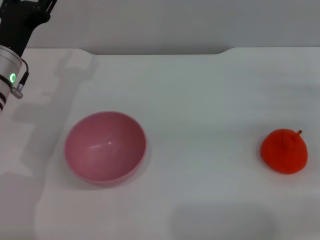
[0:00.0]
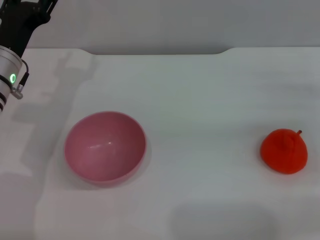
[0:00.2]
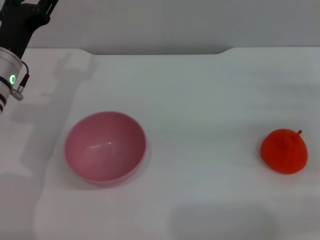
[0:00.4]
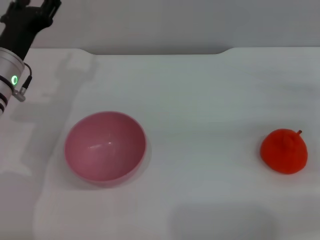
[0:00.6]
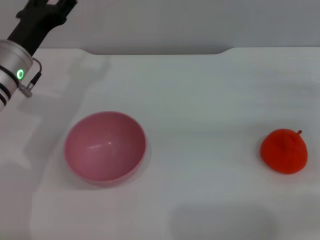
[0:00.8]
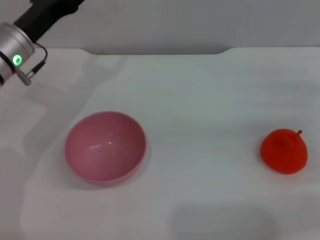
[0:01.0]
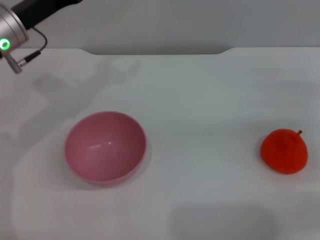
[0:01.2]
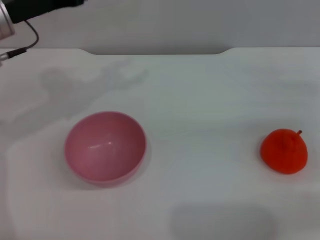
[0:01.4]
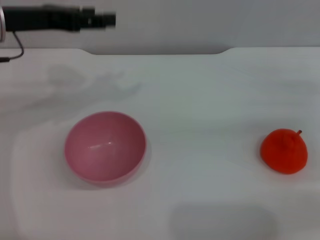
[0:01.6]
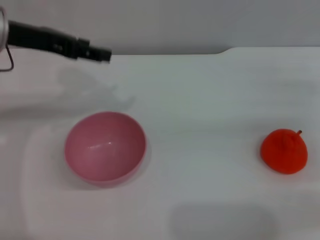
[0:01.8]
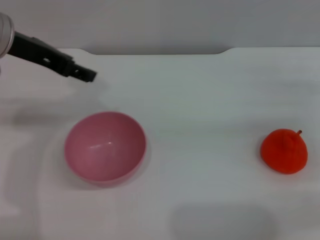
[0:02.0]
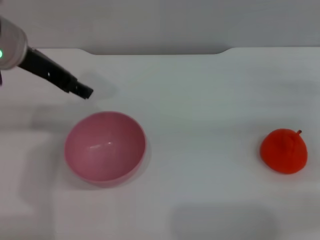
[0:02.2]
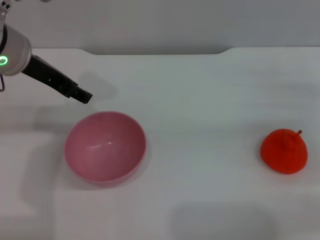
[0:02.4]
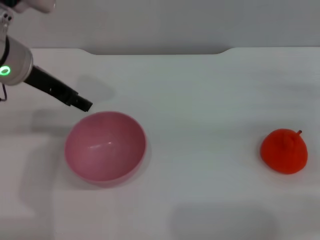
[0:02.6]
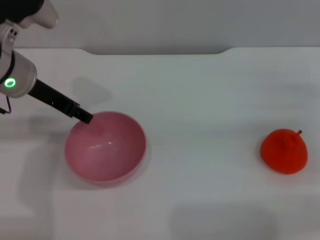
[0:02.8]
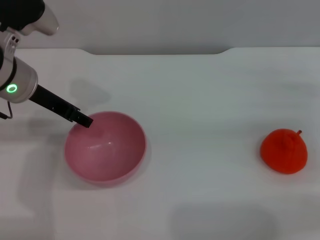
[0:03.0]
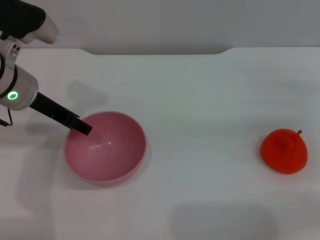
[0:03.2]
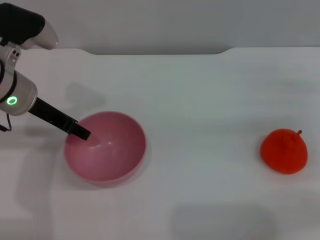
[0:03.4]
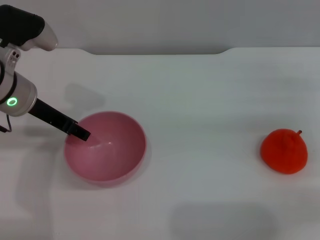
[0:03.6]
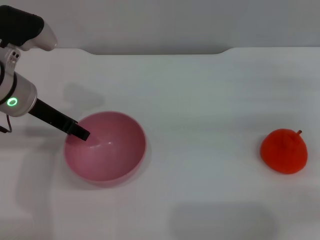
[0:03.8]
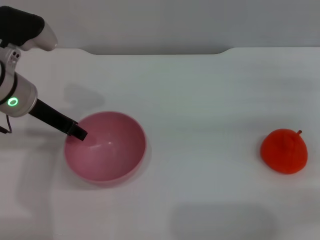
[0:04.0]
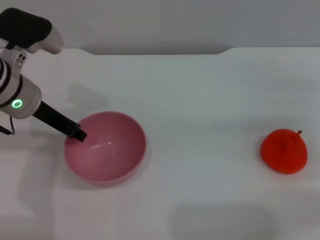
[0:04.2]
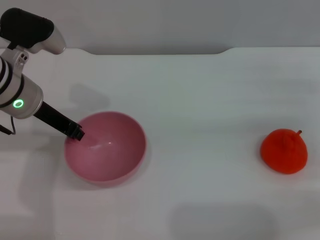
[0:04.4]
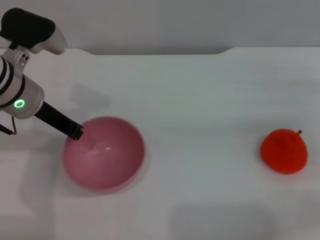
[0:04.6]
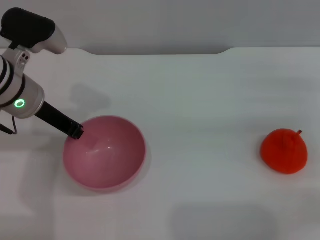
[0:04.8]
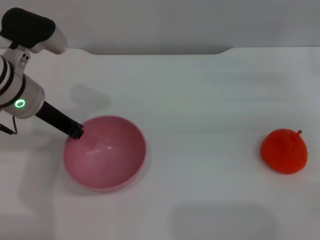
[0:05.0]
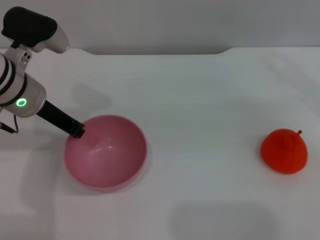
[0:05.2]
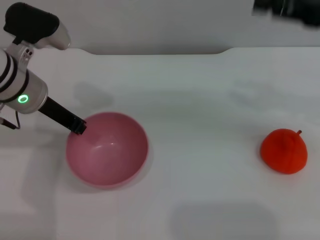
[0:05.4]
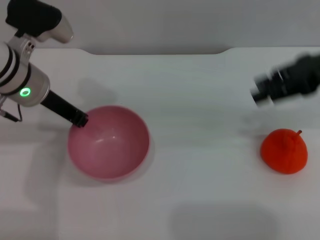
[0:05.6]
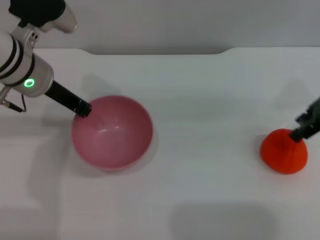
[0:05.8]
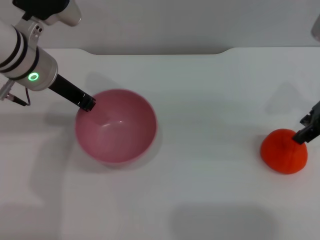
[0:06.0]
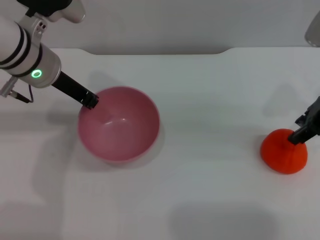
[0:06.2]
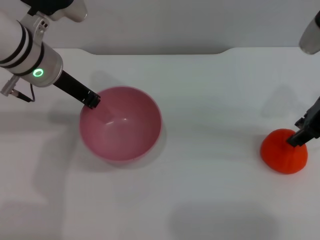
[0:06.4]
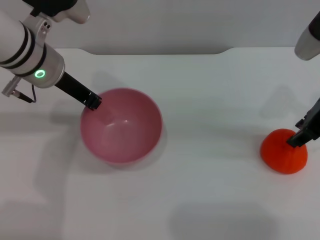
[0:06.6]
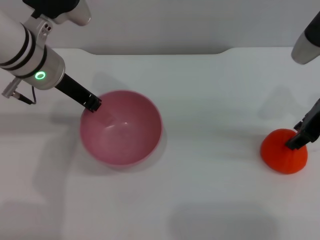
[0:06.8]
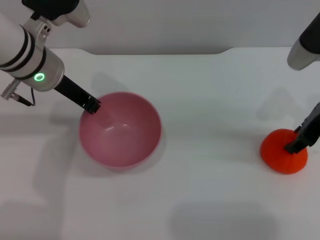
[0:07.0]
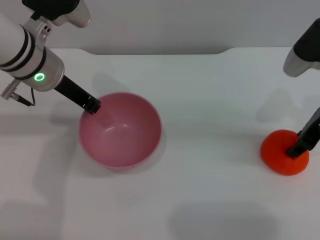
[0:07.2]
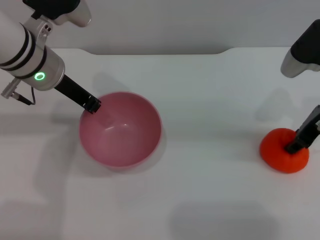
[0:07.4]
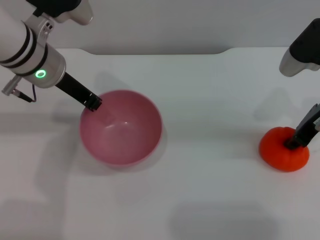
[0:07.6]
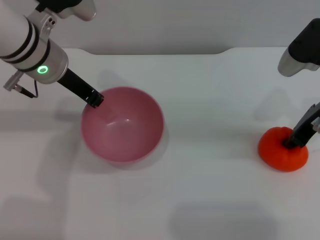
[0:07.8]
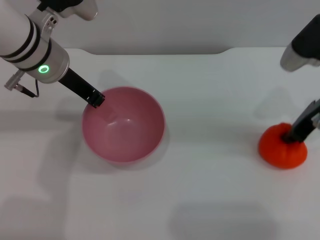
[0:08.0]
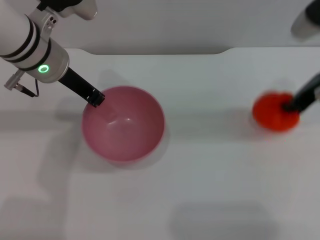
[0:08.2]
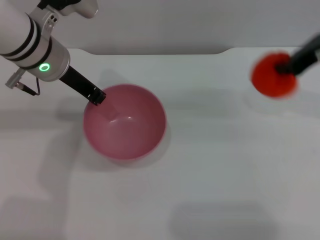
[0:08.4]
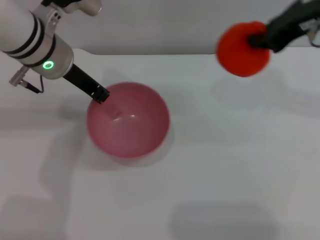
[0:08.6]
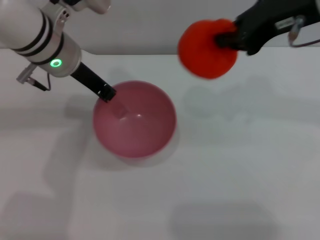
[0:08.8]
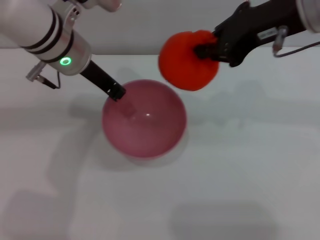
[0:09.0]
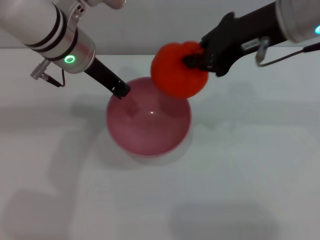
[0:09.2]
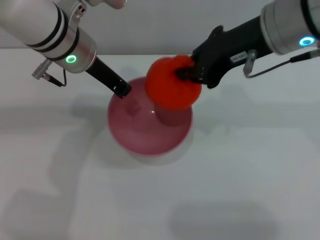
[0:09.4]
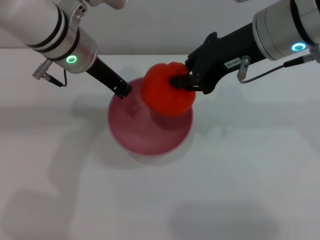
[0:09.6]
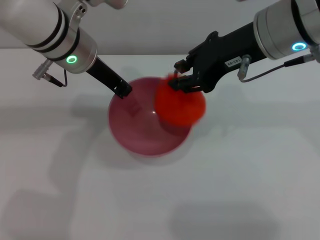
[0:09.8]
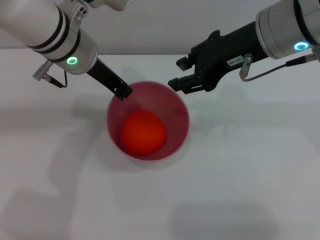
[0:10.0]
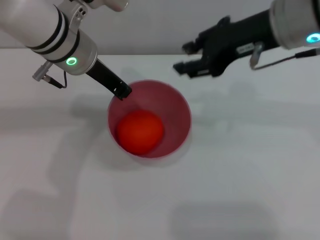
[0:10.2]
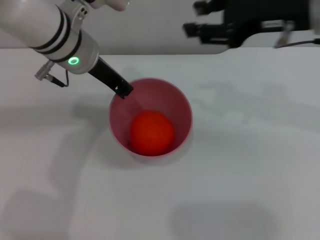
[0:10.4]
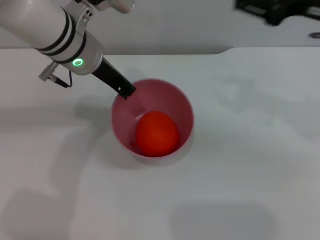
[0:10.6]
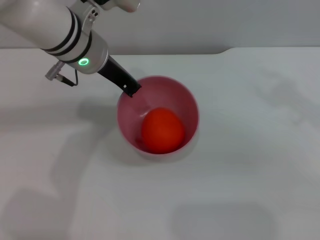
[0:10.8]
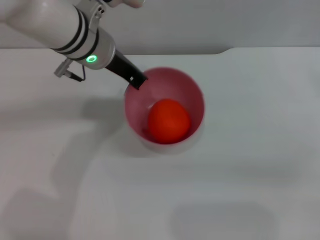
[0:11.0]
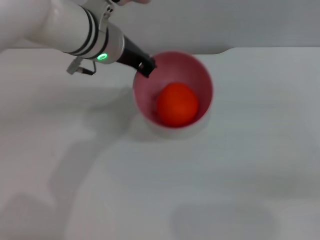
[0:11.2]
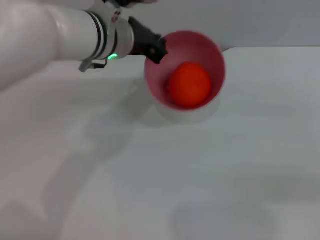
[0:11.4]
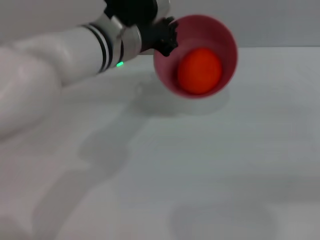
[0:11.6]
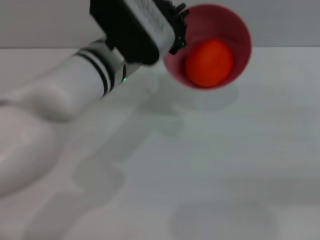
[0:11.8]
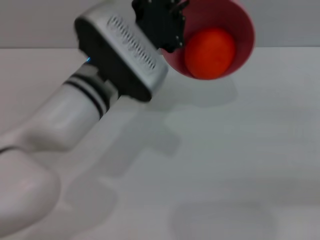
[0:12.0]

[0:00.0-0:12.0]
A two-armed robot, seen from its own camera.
Task of the whole recording: put the orange into the pink bowl and pour it out repeatedly.
Step, 0:00.0 to 0:05.8: Pick up the bowl with the left gripper.
Step, 0:06.0 to 0:08.2: Pick up the orange with the right gripper.
Step, 0:08.4 to 0:10.0: Place the orange into the bowl.
0:00.0 to 0:01.6: The left gripper shifts roughly 10 cm upward.
0:01.6 to 0:03.0: The left gripper shifts by approximately 5 cm.
0:03.0 to 0:04.4: The left gripper closes its fingers.
0:04.4 to 0:06.0: The right gripper heads upward and to the left, covering about 15 cm.
0:06.0 to 0:07.6: The right gripper shifts some 5 cm downward.
0:07.6 to 0:09.0: The right gripper travels upward and to the left by about 15 cm, and closes.
0:09.0 to 0:10.4: The right gripper opens.
0:10.4 to 0:12.0: The right gripper is displaced to the right, downward and backward by some 25 cm; the left gripper moves backward, approximately 5 cm.

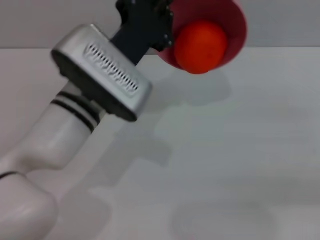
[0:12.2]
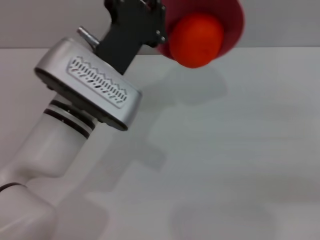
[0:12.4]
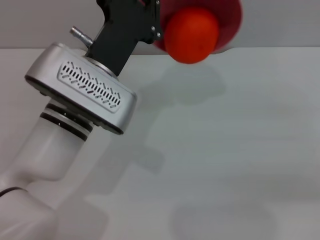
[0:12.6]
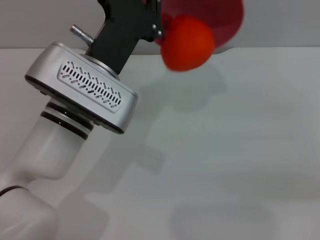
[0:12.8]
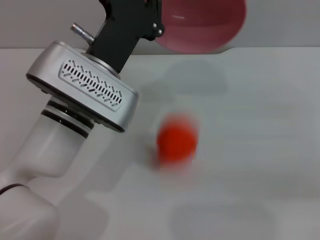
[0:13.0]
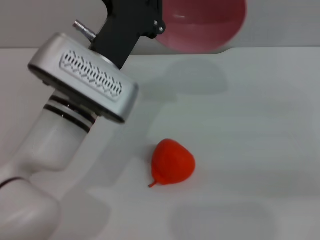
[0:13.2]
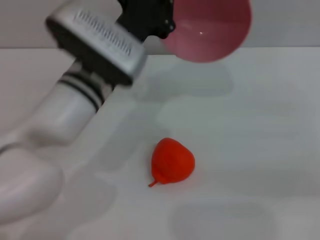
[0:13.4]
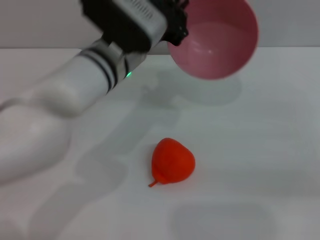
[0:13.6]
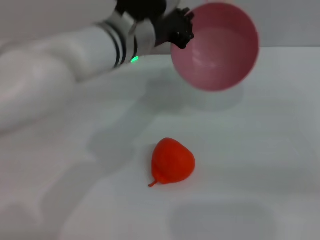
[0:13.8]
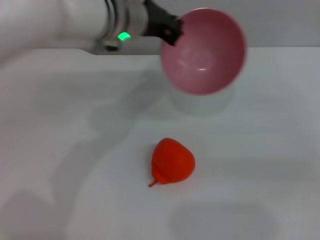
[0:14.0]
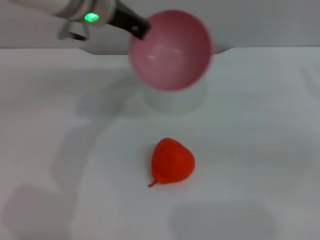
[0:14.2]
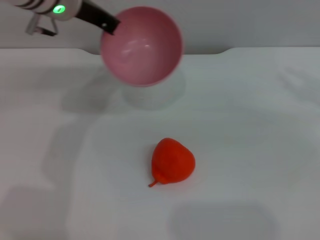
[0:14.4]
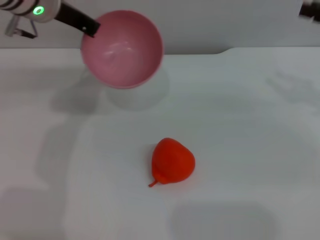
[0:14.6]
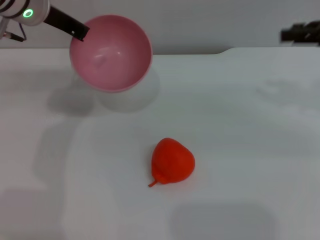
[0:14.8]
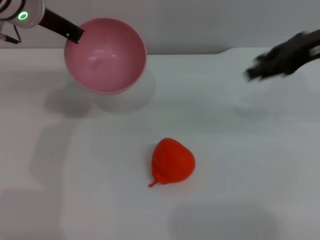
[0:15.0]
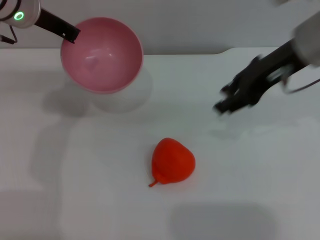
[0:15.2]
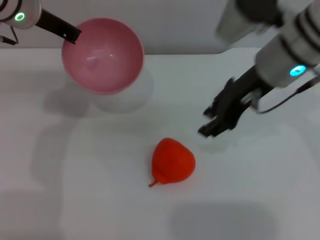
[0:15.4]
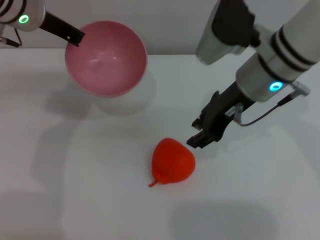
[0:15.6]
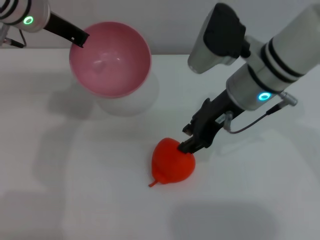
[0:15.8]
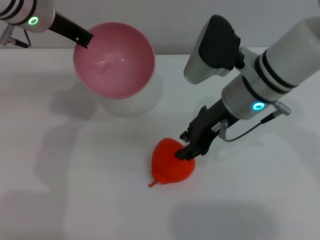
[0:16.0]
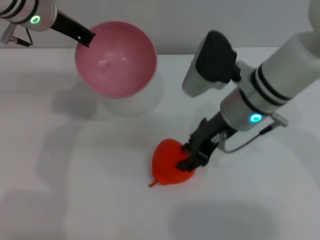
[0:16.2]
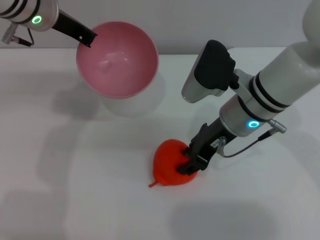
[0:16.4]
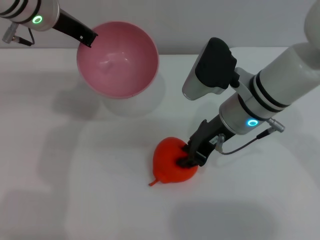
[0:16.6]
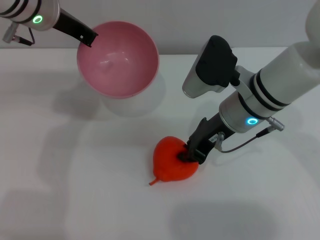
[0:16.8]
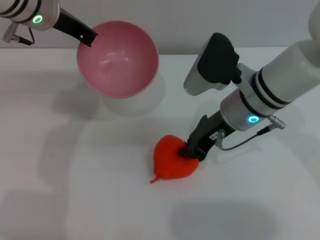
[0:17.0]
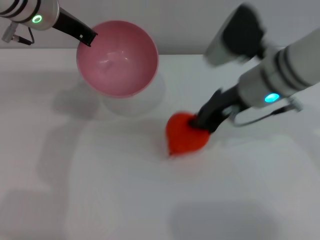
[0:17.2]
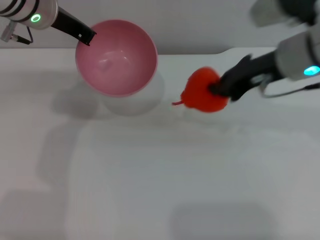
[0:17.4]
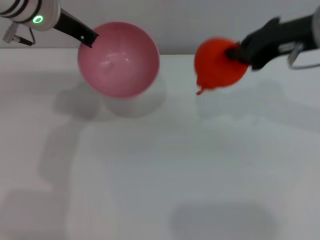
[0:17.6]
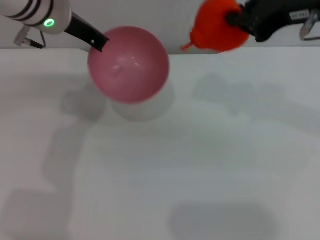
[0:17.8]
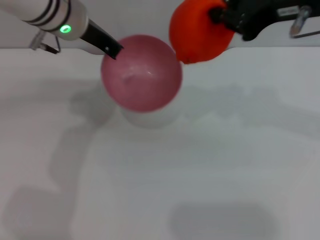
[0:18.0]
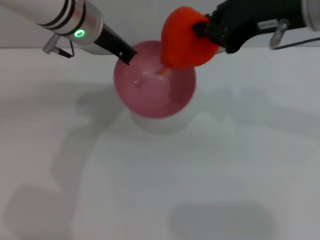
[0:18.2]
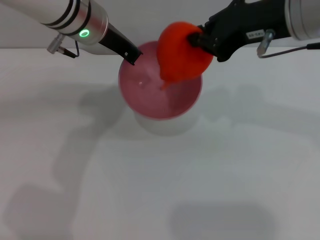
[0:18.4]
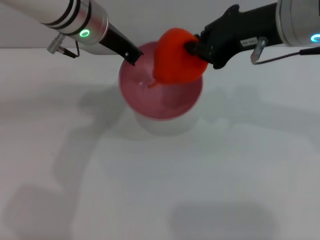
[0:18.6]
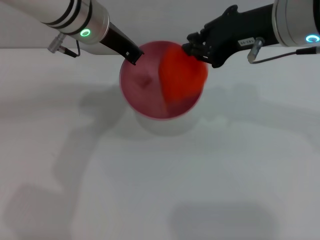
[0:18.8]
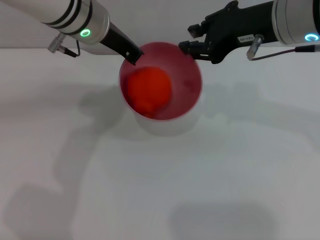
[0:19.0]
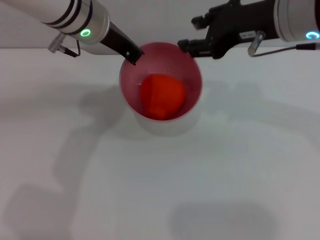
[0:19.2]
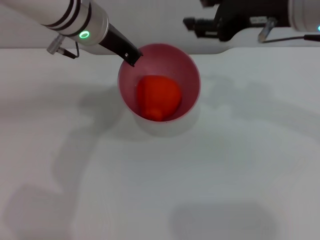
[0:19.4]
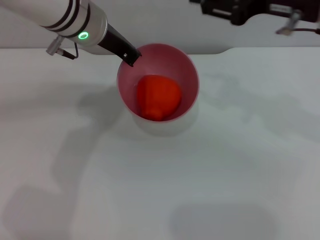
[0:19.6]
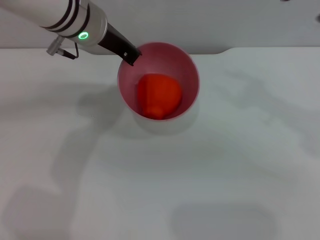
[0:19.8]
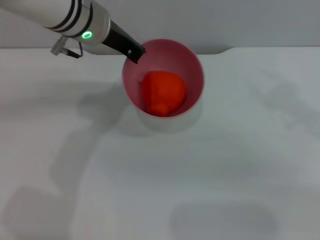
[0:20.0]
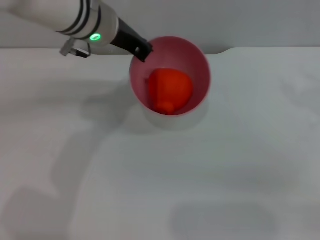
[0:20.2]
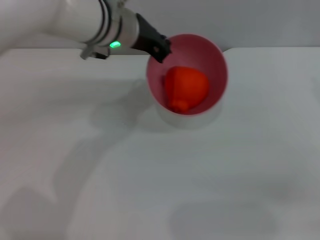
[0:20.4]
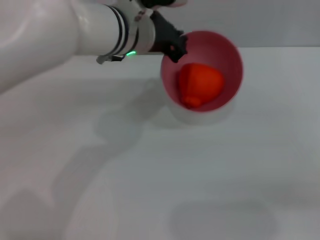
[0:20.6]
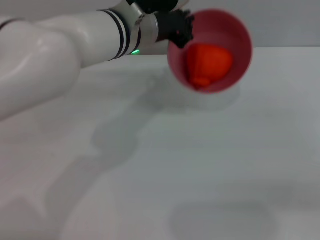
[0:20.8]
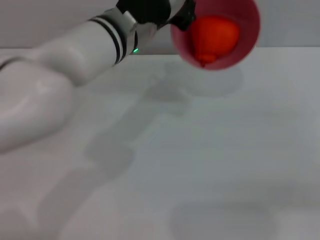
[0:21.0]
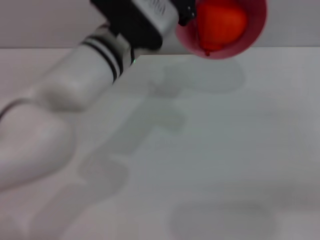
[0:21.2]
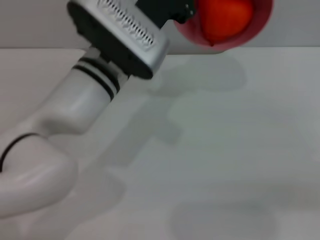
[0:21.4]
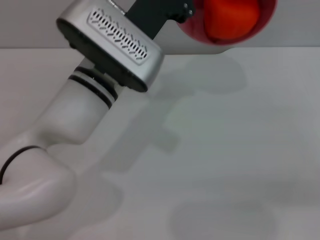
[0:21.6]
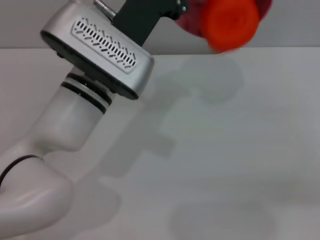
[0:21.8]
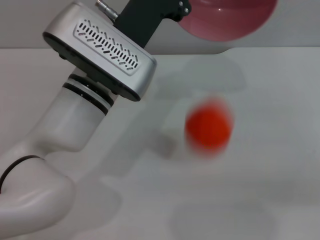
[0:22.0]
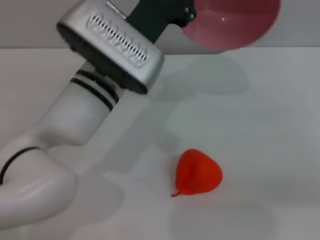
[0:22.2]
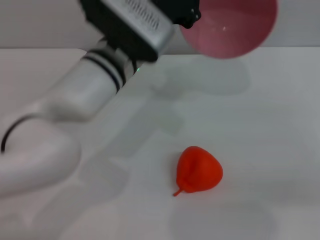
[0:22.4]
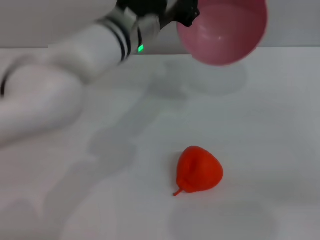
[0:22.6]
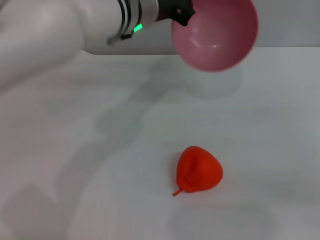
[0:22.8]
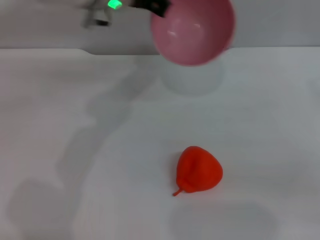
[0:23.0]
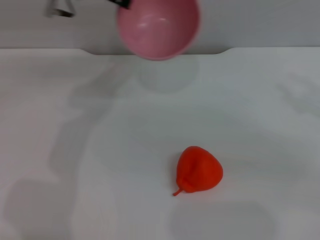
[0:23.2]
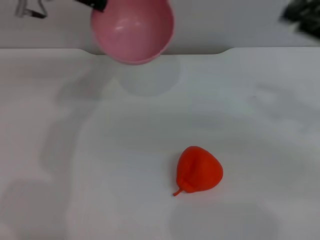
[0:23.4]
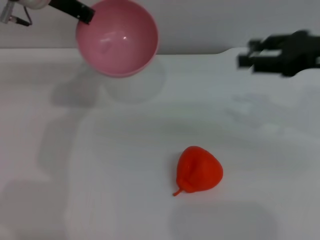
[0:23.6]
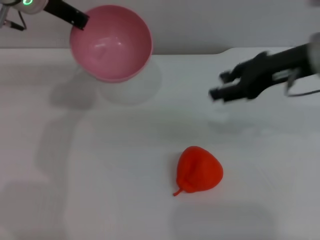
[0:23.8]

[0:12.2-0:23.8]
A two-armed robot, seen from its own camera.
Task of the whole recording: put the orange into the pink bowl and pour it out repeatedly.
Step, 0:13.4 to 0:17.2: Pick up the orange with the right gripper.
Step, 0:17.6 to 0:19.2: Place the orange into the bowl.
Step, 0:19.4 to 0:22.0: Pour the orange out of the bowl.
0:12.2 to 0:13.6: The left gripper heads forward, covering approximately 5 cm.
0:13.6 to 0:15.0: The left gripper goes about 15 cm to the left, forward and upward. Meanwhile the right gripper moves to the left, upward and forward, approximately 20 cm.
0:15.0 to 0:16.6: The right gripper travels to the left and downward by approximately 20 cm.
0:16.6 to 0:18.0: The right gripper travels upward by about 20 cm, and closes.
0:18.0 to 0:19.4: The right gripper ends up about 5 cm from where it was, and opens up.
0:19.4 to 0:21.0: The right gripper goes about 25 cm to the right, downward and backward. The left gripper shifts about 5 cm to the right.
0:22.4 to 0:23.8: Both grippers move to the left, forward and upward, approximately 20 cm.
